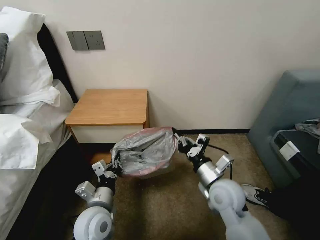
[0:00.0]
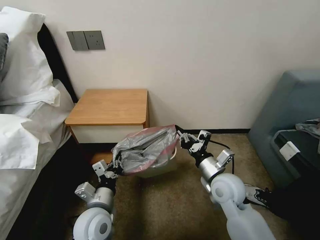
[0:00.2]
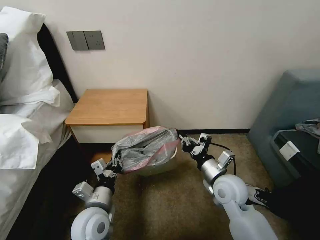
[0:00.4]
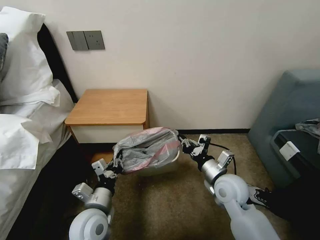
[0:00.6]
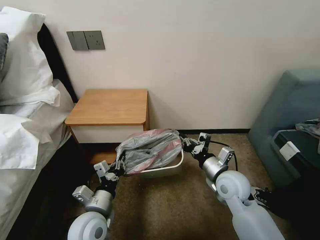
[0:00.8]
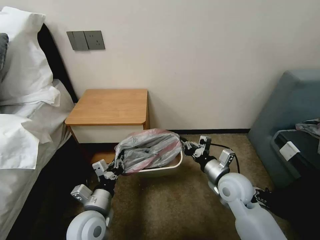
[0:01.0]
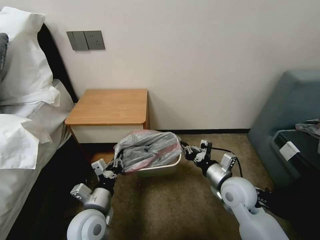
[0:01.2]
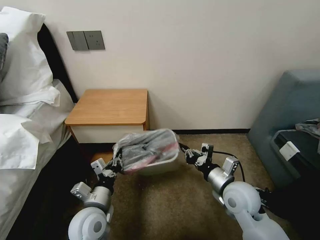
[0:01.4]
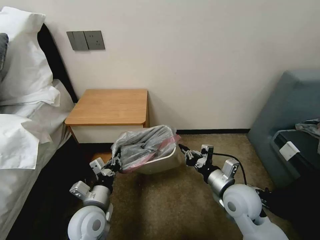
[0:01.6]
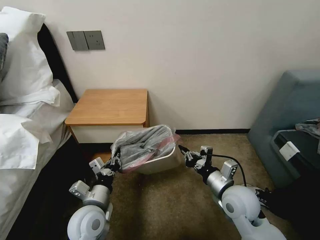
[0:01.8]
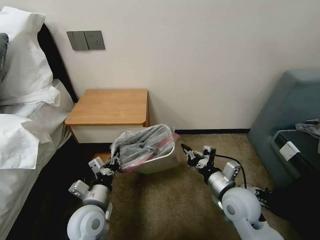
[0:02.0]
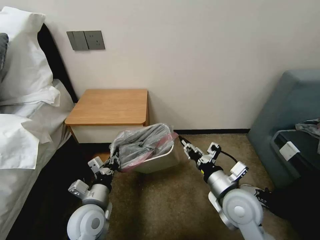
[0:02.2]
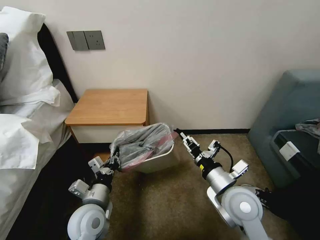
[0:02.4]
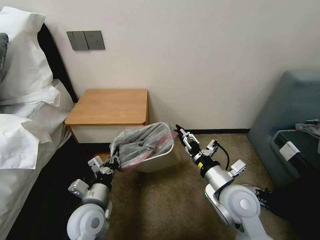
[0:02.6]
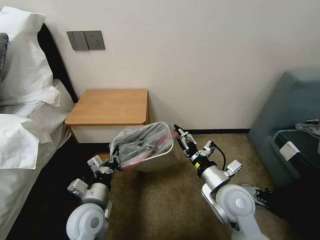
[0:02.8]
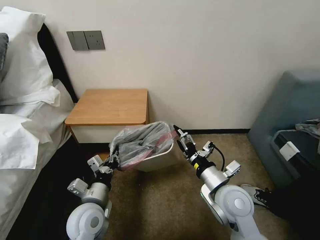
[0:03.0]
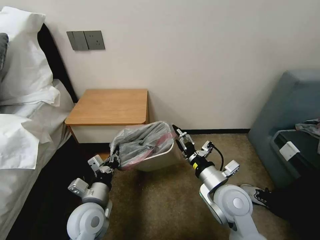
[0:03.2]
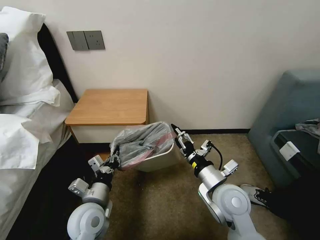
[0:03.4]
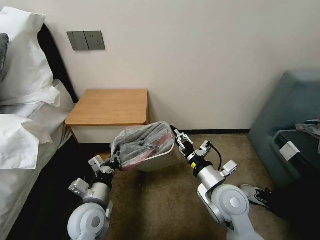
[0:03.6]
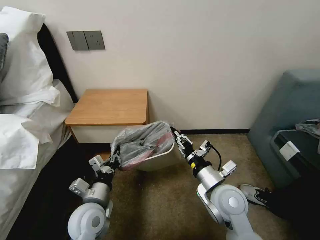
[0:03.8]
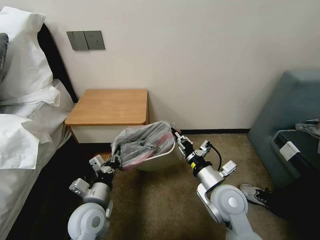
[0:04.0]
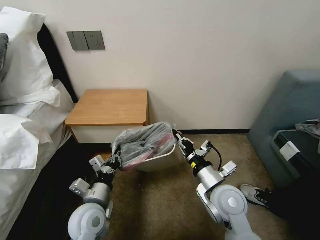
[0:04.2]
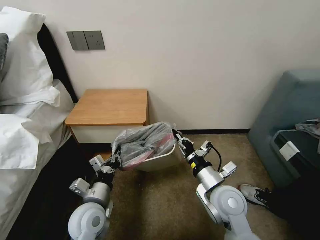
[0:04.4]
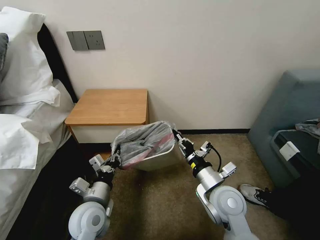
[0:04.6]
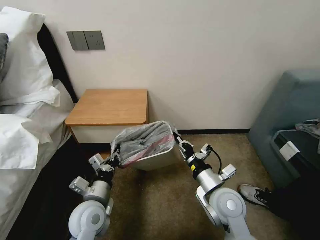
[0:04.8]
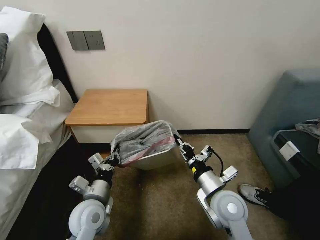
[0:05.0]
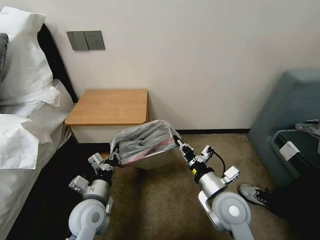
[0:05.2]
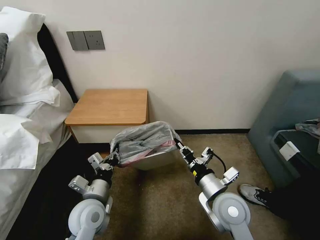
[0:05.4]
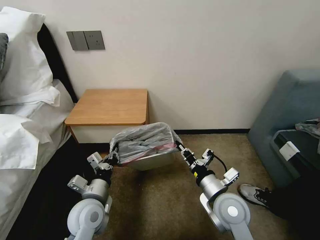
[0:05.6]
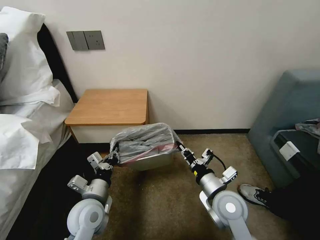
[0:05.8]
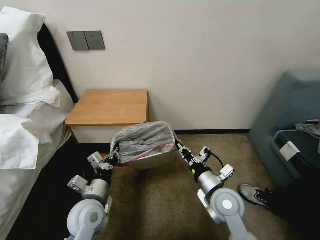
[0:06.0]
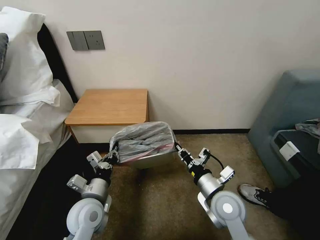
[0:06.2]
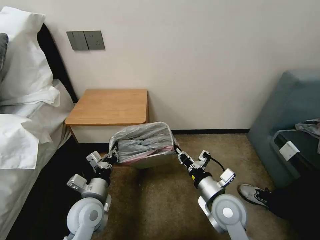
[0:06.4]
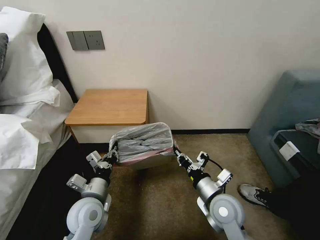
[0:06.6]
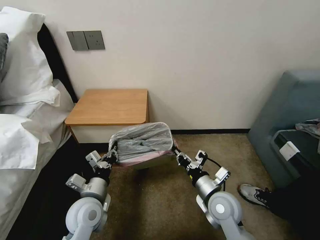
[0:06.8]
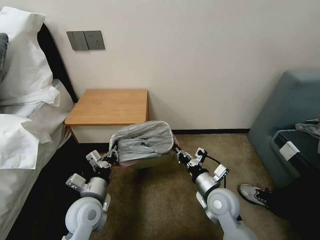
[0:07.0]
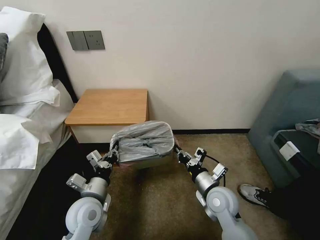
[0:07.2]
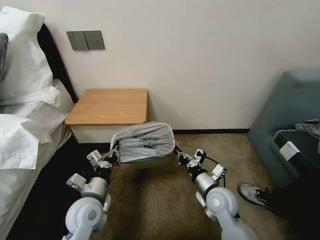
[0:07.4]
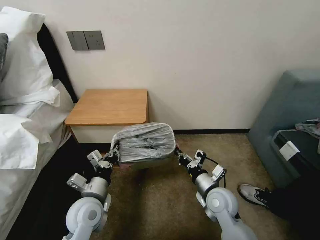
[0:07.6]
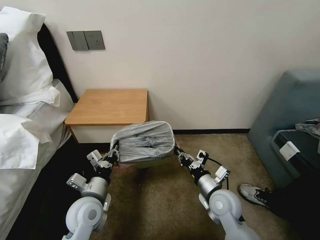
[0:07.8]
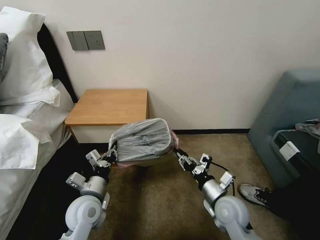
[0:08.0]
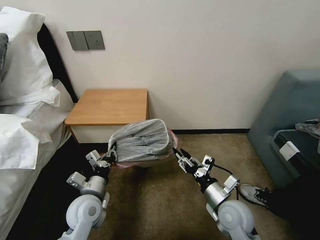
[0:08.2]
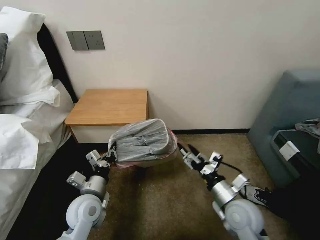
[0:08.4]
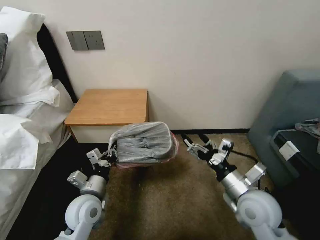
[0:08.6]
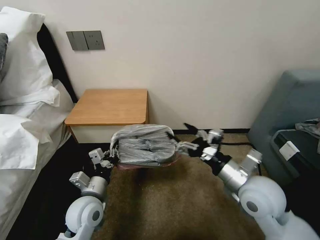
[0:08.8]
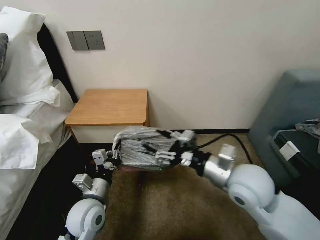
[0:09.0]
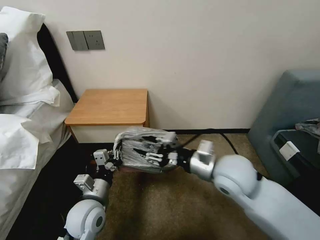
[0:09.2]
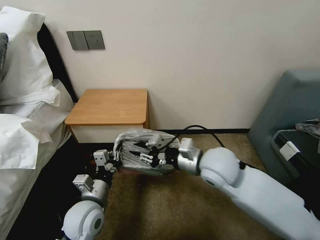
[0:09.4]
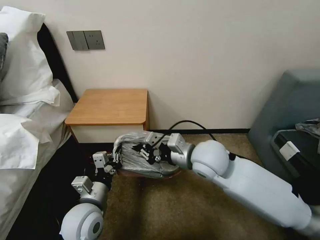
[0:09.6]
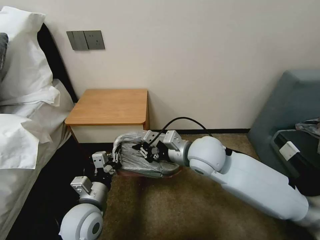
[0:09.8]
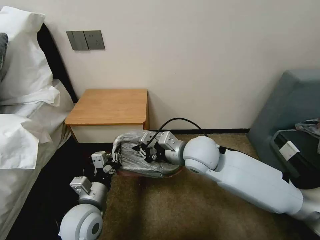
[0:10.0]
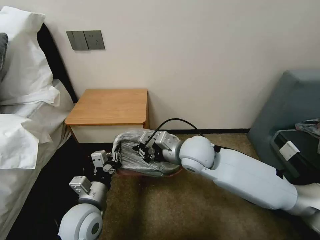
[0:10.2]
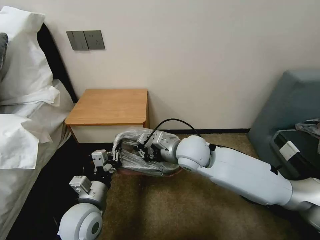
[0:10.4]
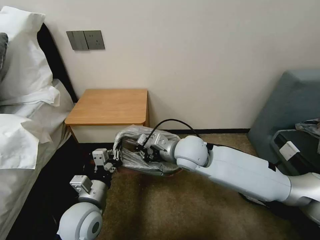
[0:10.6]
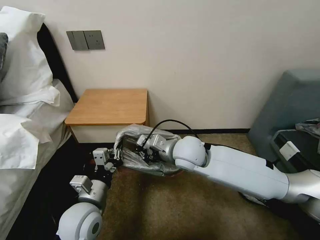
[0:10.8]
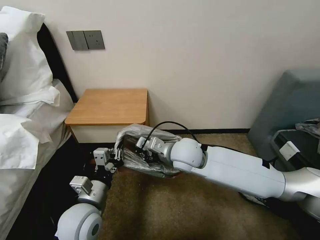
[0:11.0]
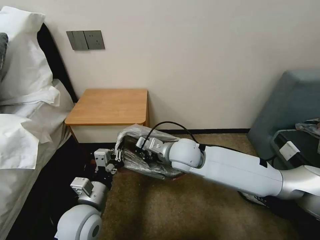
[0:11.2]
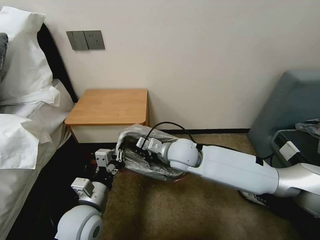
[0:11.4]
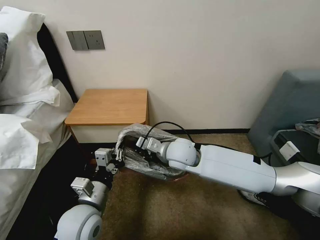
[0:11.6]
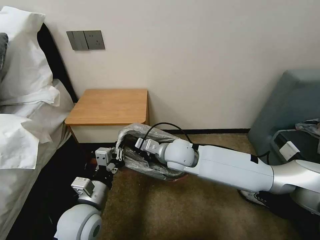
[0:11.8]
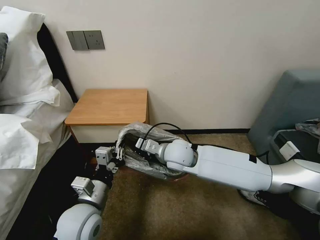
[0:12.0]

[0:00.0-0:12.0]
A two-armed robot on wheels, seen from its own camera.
Task of the whole recording: Pick up the garbage bag from the table and place it over the trash can.
0:00.0 to 0:01.6: The grippers stay close to where they were, moving slightly.
0:01.6 to 0:03.0: The right gripper opens.
0:03.0 to 0:04.4: The right gripper closes its fingers.
0:04.4 to 0:06.0: The grippers stay close to where they were, moving slightly.
0:06.0 to 0:07.6: The right gripper changes place by approximately 5 cm.
0:07.6 to 0:09.0: The right gripper travels upward by roughly 15 cm, and opens up.
0:09.0 to 0:10.4: The right gripper travels to the left and forward by roughly 15 cm, and closes its fingers.
0:10.4 to 0:12.0: The right gripper shifts by roughly 5 cm.

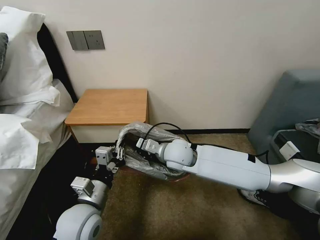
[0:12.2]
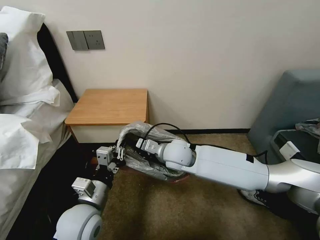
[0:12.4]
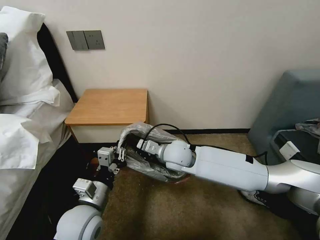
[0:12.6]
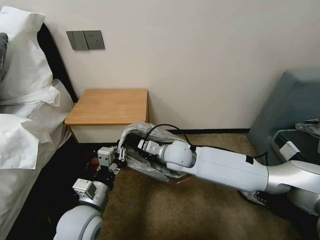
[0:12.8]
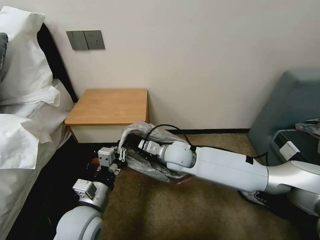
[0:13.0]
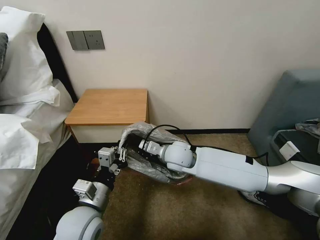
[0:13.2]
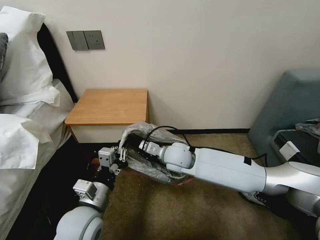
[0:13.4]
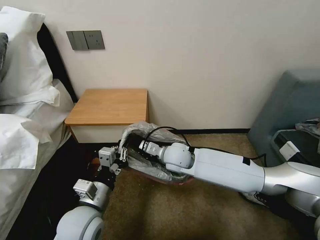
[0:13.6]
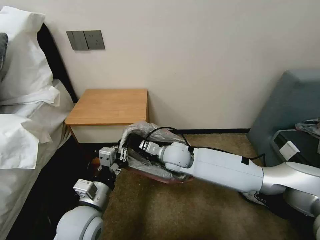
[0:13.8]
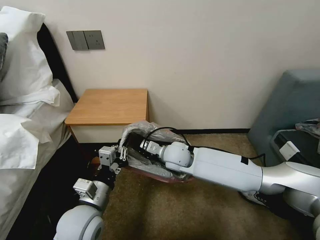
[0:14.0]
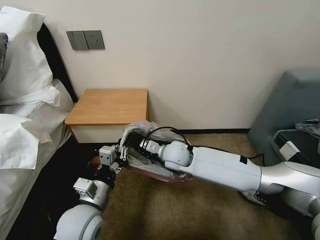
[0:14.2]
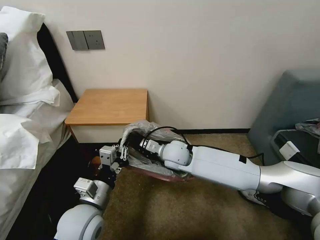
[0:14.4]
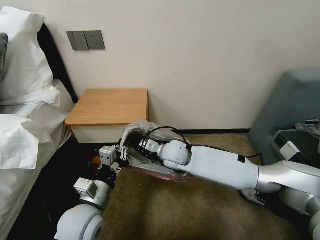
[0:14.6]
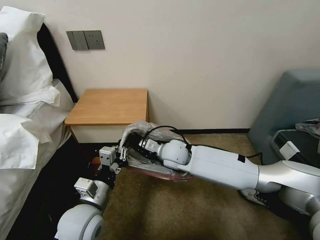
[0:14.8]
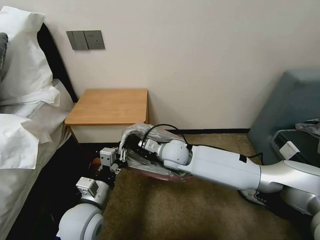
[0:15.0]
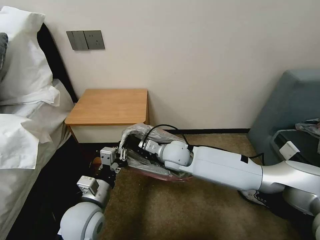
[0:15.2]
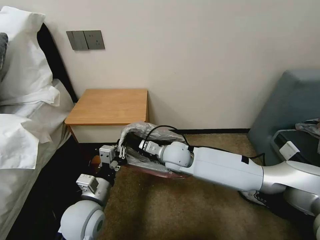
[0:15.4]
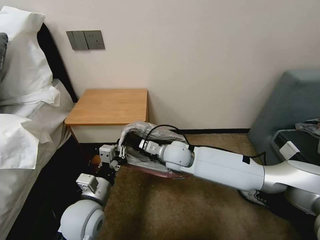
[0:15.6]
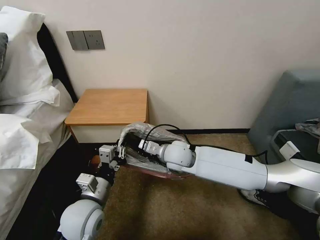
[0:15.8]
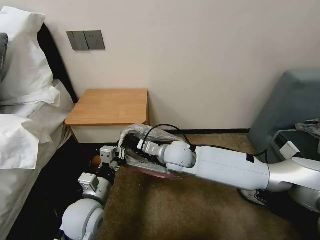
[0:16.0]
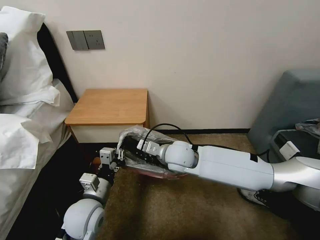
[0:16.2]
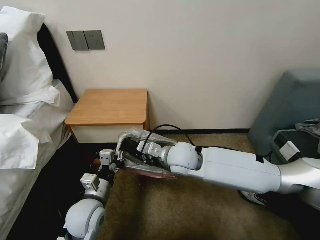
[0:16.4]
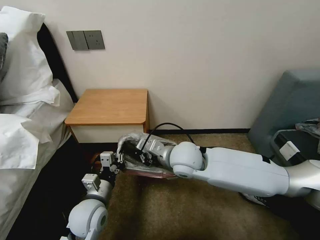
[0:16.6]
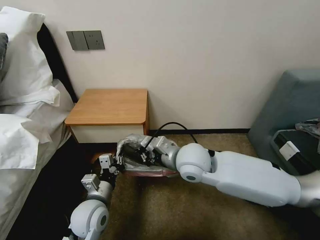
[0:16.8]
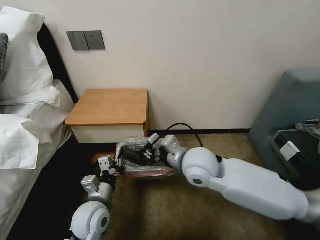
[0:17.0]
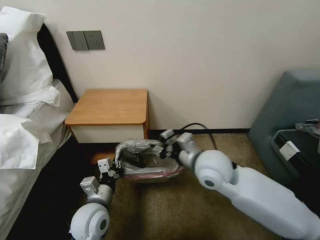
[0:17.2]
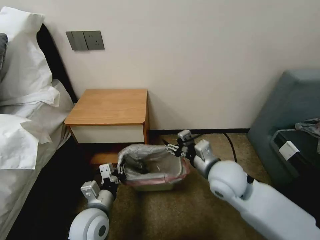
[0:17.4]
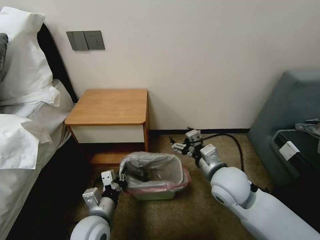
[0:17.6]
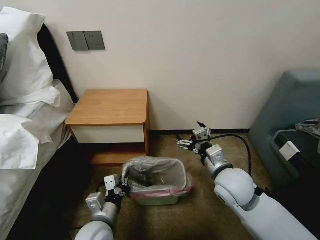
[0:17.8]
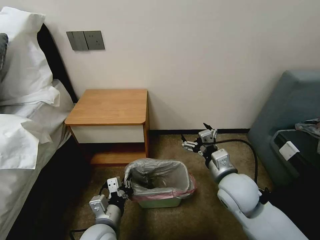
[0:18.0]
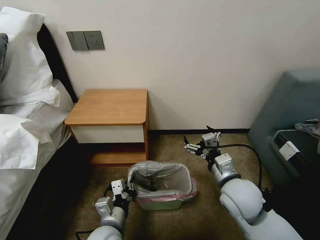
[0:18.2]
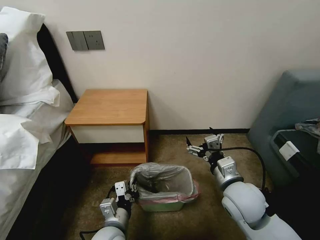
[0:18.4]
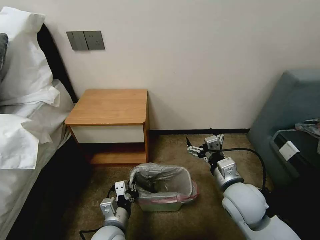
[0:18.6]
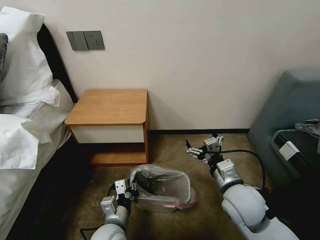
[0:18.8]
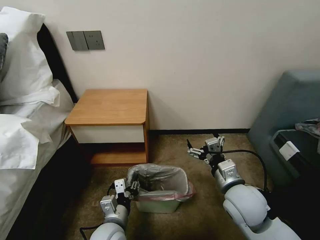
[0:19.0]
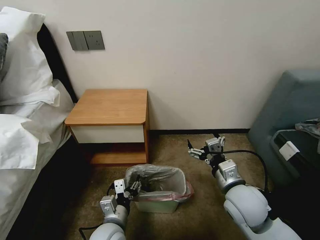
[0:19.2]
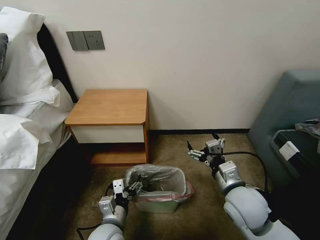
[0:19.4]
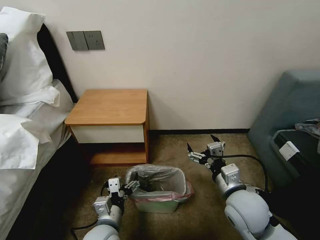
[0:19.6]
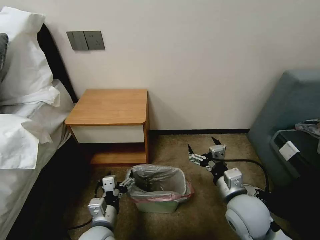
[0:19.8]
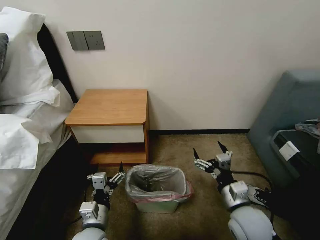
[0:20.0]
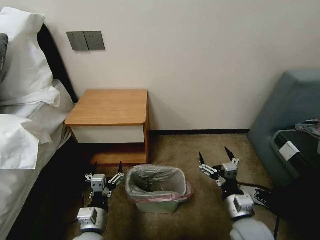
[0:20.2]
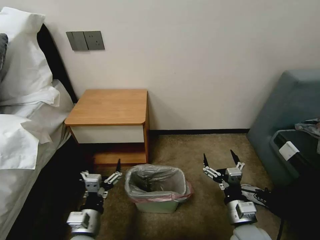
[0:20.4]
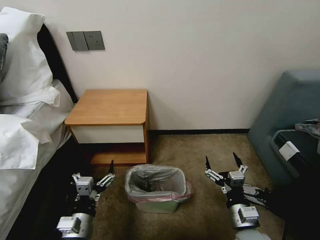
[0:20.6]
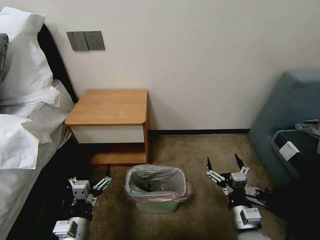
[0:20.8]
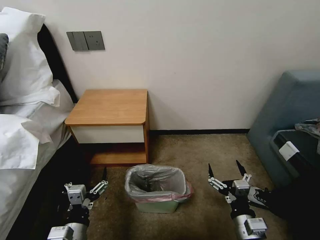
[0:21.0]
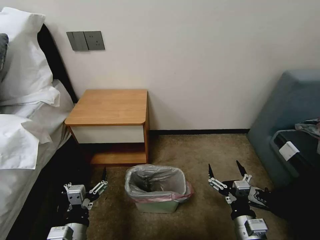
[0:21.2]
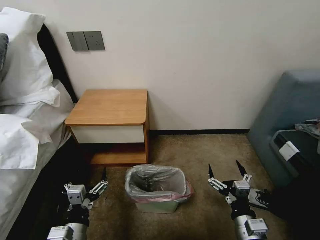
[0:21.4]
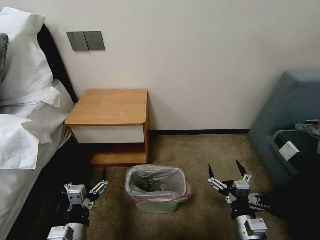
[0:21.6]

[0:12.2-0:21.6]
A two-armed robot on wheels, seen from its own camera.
Task of the whole recording: Pick up the garbage bag from the table and place it over the trash can.
0:12.2 to 0:15.4: The grippers stay close to where they were, moving slightly.
0:15.4 to 0:17.0: The right gripper moves backward and upward, some 10 cm.
0:17.0 to 0:18.4: The left gripper goes roughly 10 cm backward and to the right. Meanwhile the right gripper heads to the right, backward and downward, covering approximately 15 cm, and opens its fingers.
0:18.4 to 0:20.0: The left gripper opens up. Meanwhile the right gripper travels downward by approximately 5 cm.
0:20.0 to 0:21.6: Both grippers travel together backward, some 5 cm.

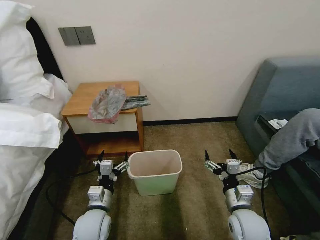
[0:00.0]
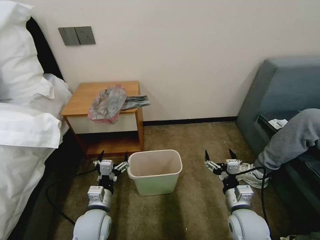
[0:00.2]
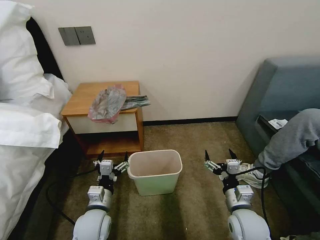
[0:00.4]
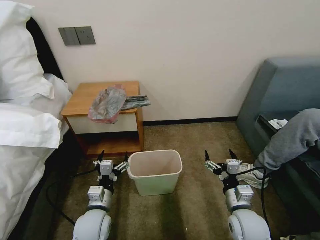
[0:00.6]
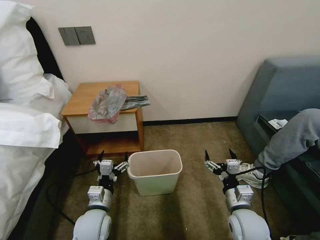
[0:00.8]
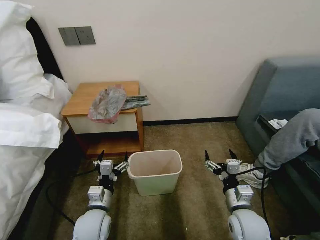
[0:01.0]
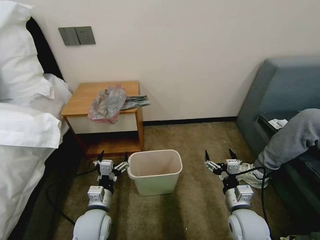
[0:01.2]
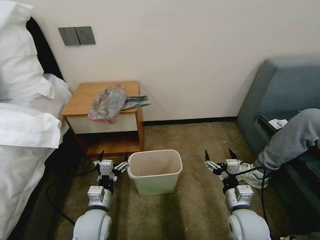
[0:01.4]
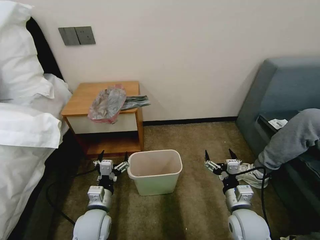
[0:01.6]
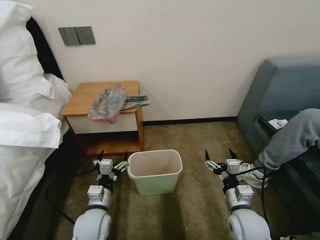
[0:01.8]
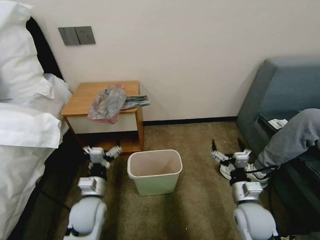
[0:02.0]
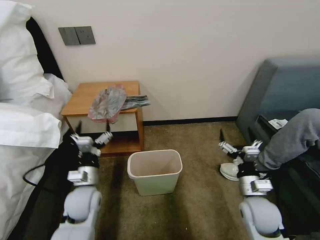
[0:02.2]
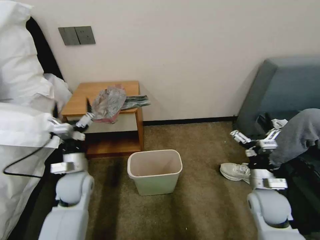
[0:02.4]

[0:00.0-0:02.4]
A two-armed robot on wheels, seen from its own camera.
Task of the whole recording: Pick up the garbage bag from the table and place it over the trash can.
0:01.2 to 0:02.4: The right gripper heads to the right and forward, covering approximately 10 cm, while the left gripper goes about 15 cm forward, upward and to the left.
